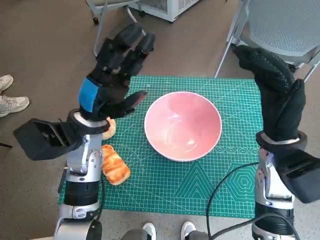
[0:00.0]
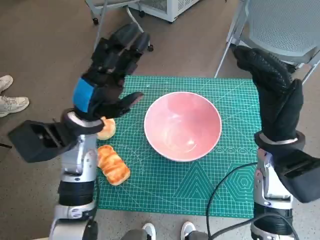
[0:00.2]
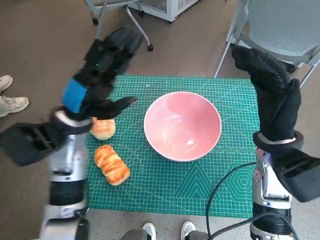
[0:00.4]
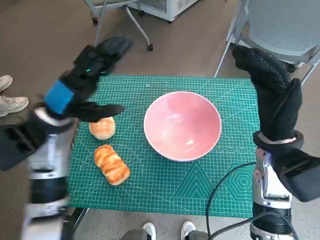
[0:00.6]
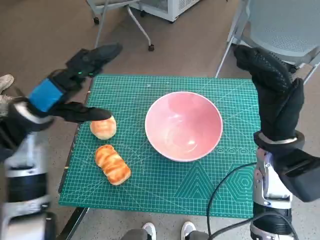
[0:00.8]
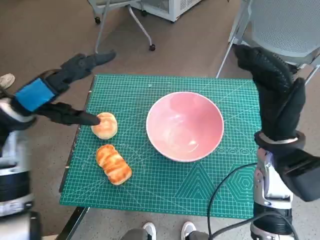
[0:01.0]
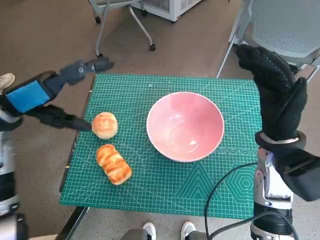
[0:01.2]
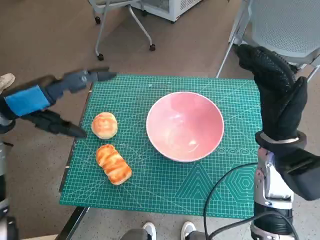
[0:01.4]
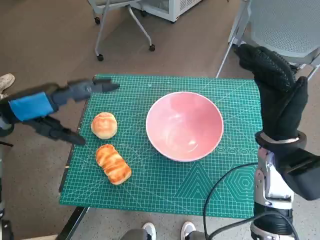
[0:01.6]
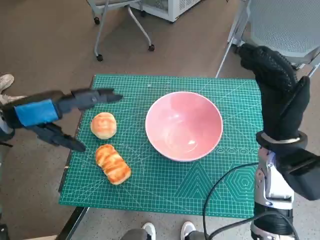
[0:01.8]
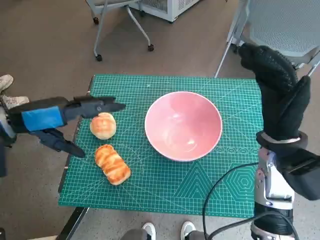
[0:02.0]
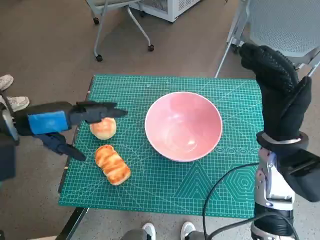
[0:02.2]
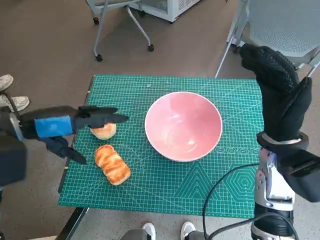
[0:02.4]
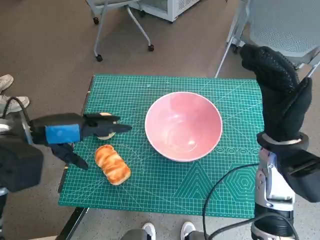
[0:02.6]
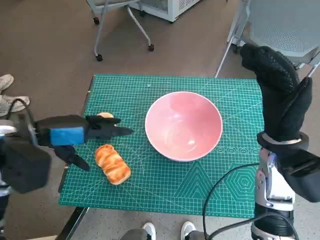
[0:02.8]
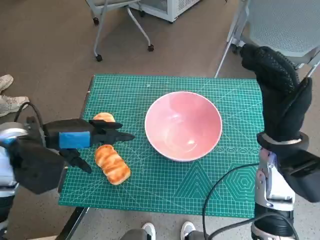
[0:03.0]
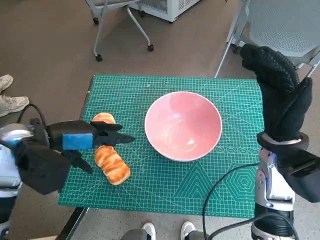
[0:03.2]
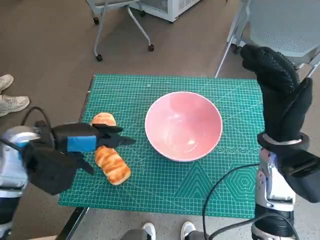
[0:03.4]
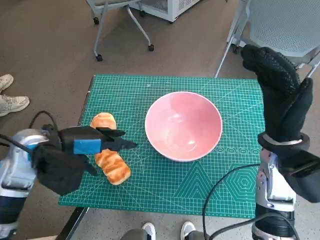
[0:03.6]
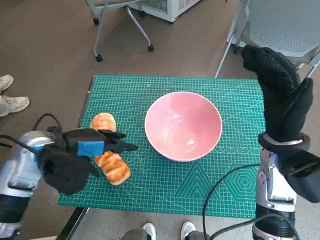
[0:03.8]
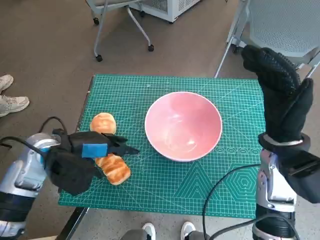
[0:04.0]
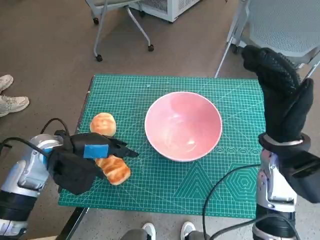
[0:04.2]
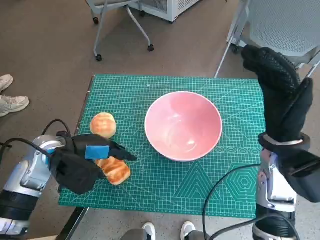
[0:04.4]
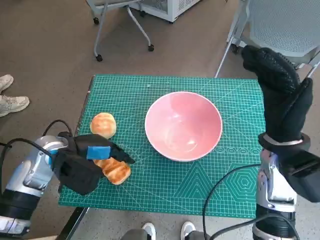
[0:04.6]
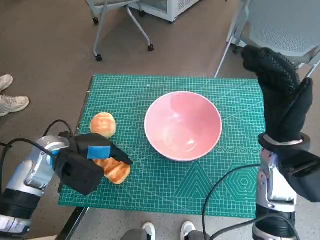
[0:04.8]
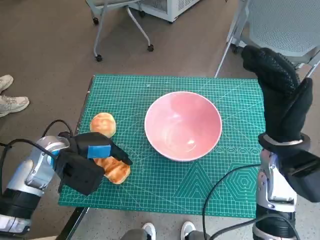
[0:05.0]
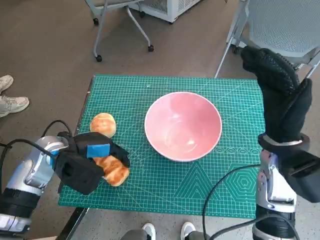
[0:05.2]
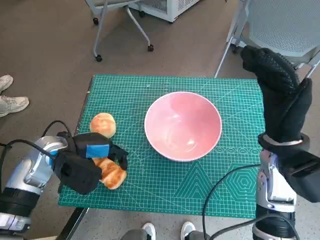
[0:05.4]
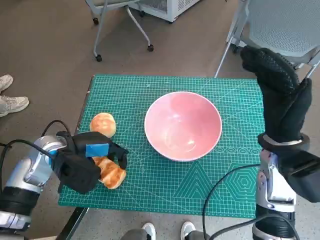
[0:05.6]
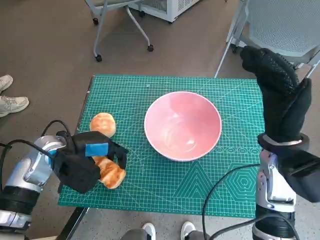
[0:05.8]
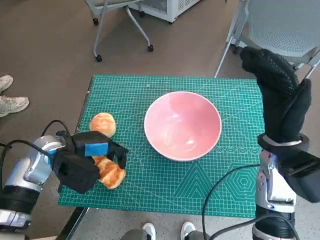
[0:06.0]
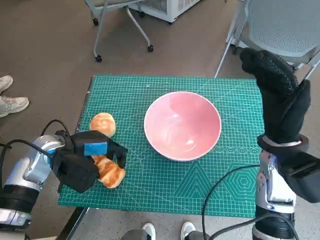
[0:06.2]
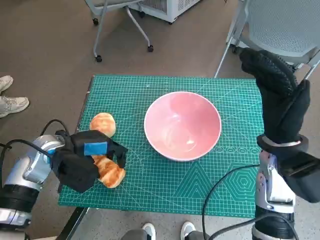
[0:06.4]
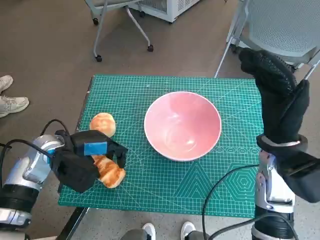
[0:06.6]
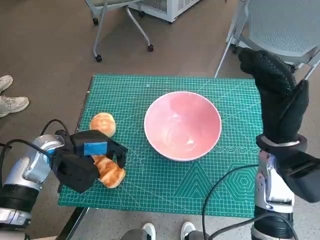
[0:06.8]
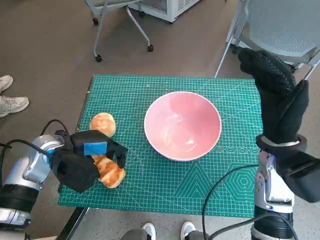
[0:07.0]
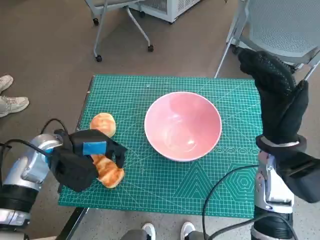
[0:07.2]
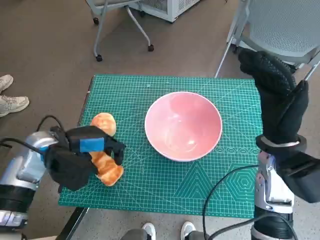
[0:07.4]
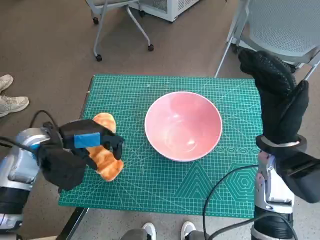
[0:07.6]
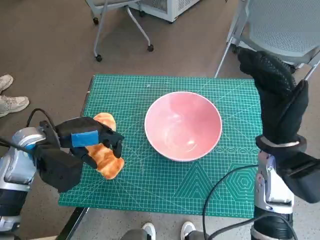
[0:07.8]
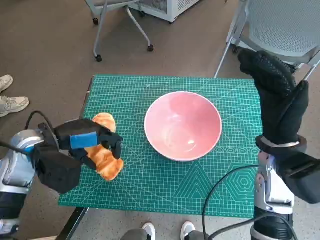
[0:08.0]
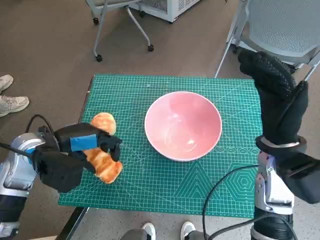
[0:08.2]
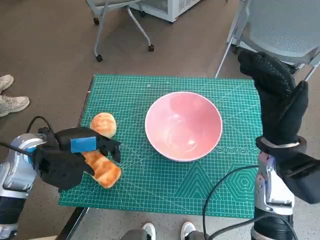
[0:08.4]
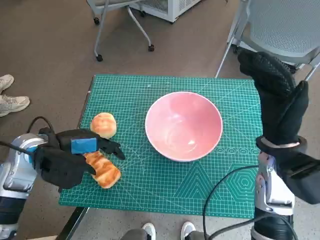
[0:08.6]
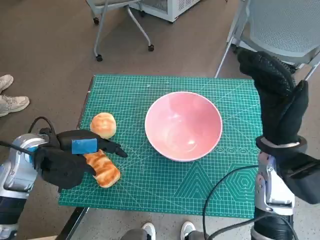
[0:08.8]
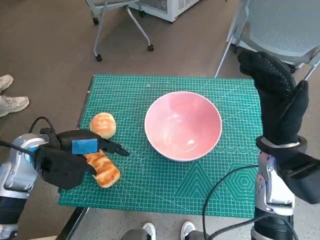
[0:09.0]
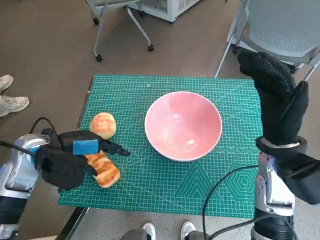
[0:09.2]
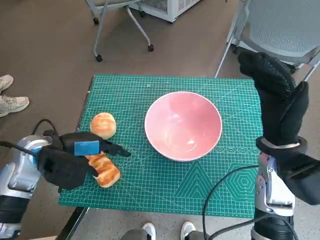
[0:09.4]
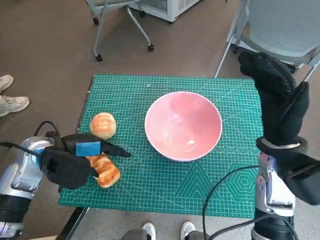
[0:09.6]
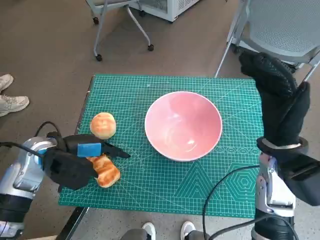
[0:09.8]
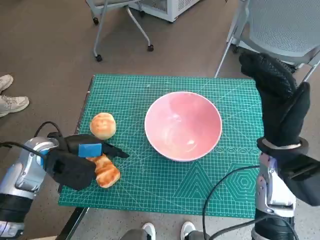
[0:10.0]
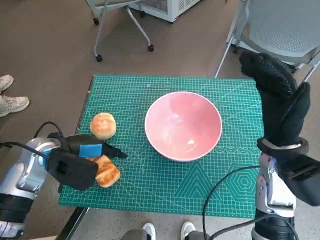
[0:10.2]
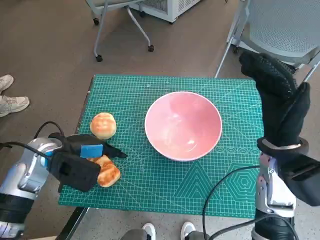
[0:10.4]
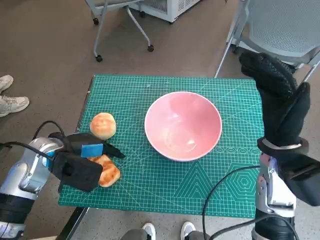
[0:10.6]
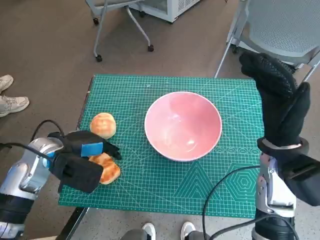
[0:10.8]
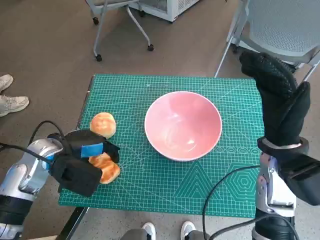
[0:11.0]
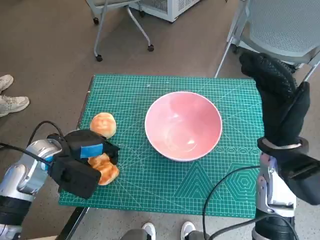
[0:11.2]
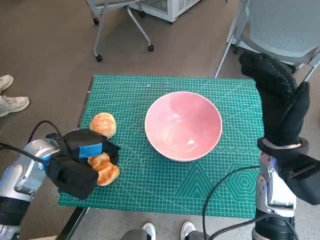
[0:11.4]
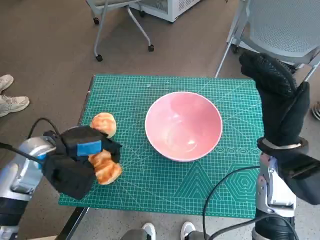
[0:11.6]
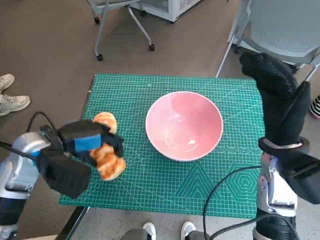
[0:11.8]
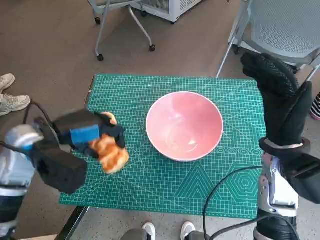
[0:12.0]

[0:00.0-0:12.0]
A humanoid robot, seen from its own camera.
Task of the whole recording: Push the bowl into the center of the table and put the bread into the bowl.
Step, 0:00.0 to 0:06.6: Grasp the long bread with left hand.
Step, 0:06.8 to 0:11.4: Grasp the long bread with left hand.
0:00.0 to 0:01.6: The left hand is displaced to the left and upward by approximately 15 cm.
0:01.6 to 0:03.0: The left hand ends up roughly 5 cm from where it was.
0:03.0 to 0:04.4: The left hand travels downward by roughly 5 cm.
0:04.4 to 0:10.4: The hands stay close to where they were, moving slightly.
0:10.4 to 0:12.0: The left hand travels upward by some 5 cm.

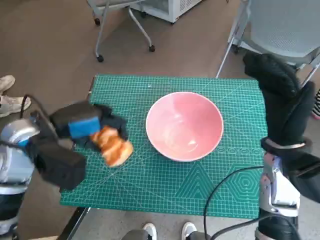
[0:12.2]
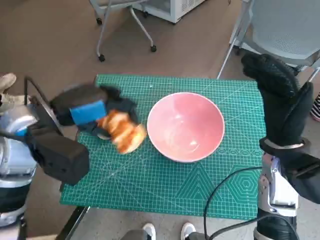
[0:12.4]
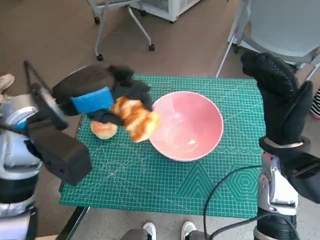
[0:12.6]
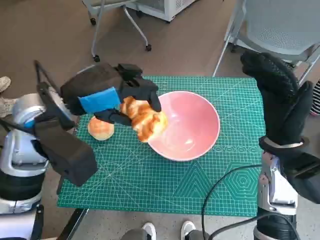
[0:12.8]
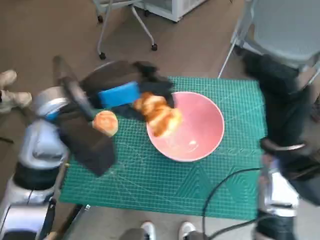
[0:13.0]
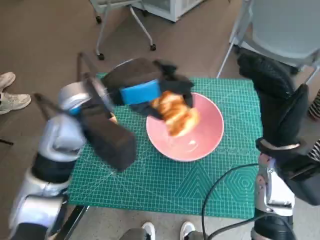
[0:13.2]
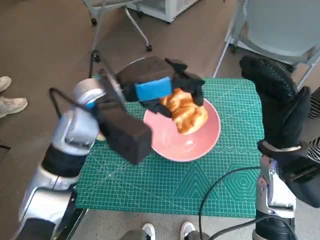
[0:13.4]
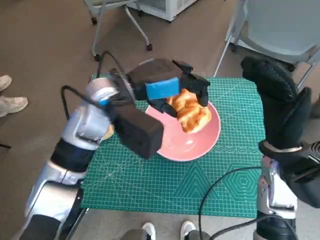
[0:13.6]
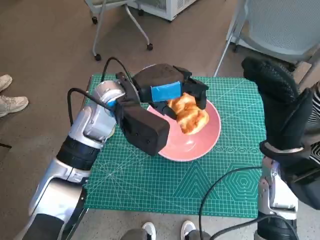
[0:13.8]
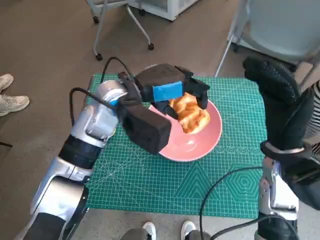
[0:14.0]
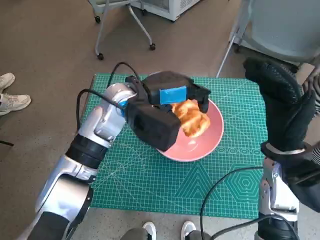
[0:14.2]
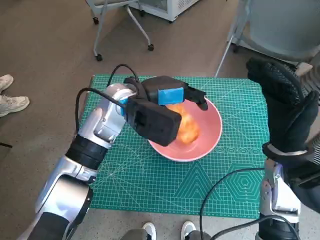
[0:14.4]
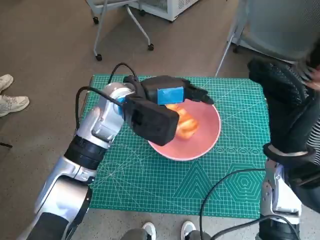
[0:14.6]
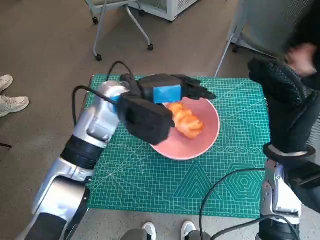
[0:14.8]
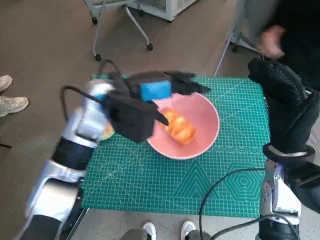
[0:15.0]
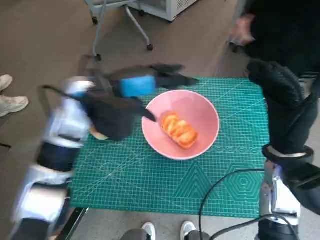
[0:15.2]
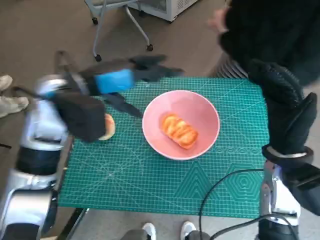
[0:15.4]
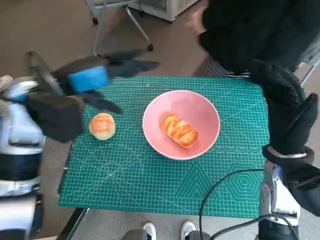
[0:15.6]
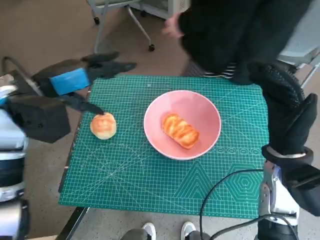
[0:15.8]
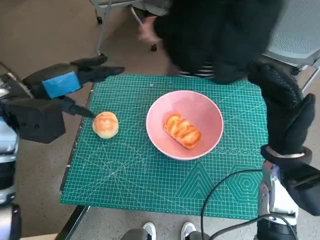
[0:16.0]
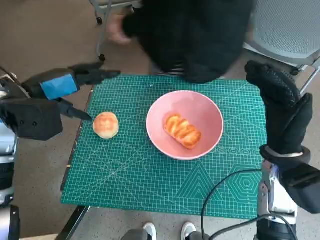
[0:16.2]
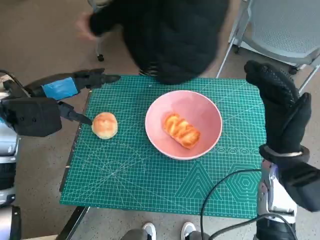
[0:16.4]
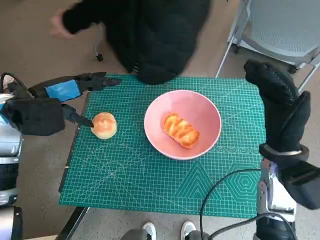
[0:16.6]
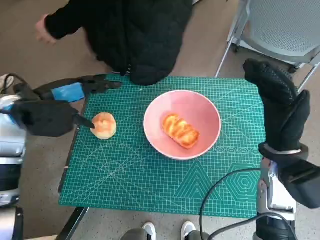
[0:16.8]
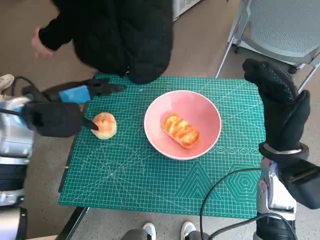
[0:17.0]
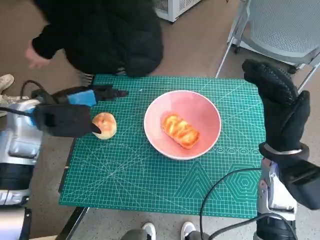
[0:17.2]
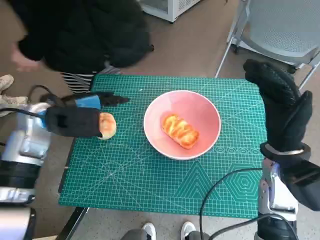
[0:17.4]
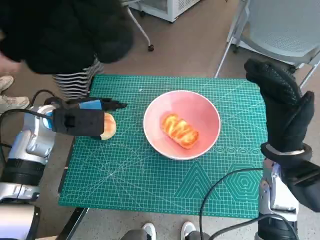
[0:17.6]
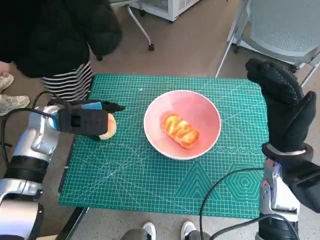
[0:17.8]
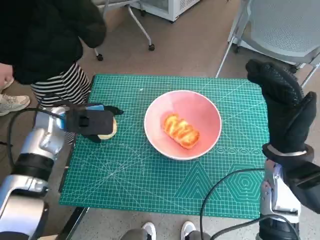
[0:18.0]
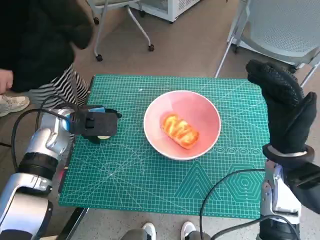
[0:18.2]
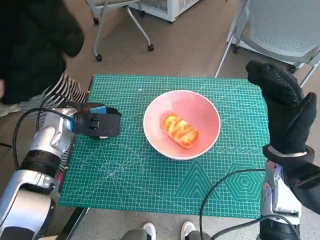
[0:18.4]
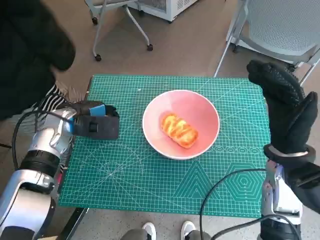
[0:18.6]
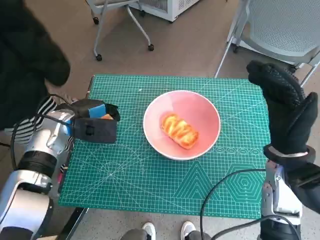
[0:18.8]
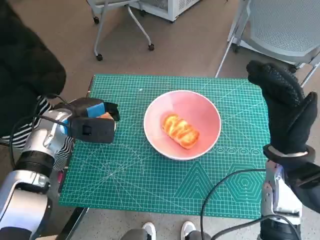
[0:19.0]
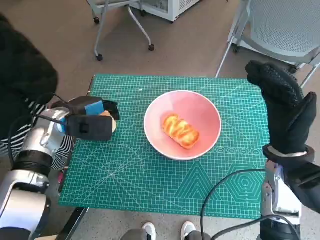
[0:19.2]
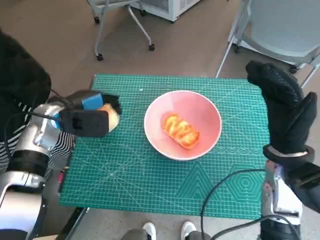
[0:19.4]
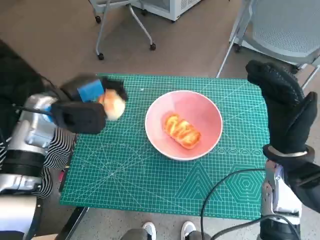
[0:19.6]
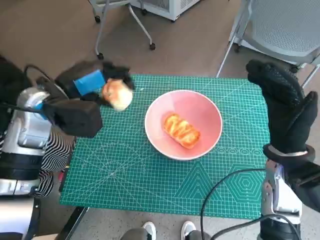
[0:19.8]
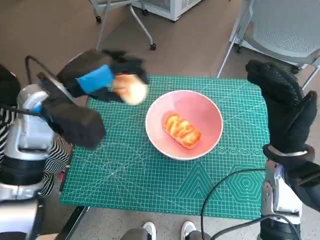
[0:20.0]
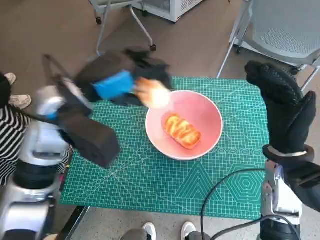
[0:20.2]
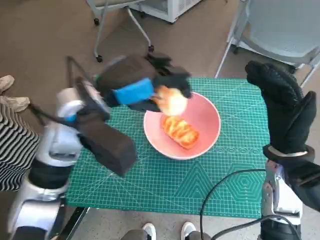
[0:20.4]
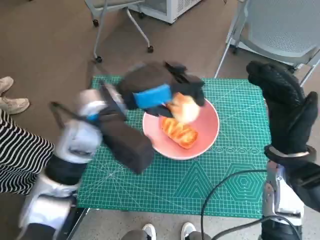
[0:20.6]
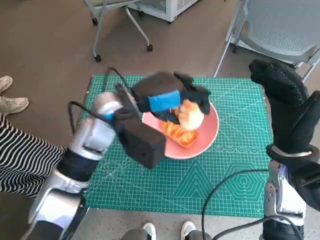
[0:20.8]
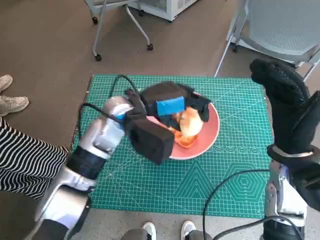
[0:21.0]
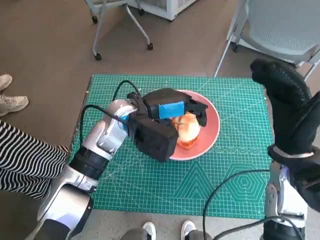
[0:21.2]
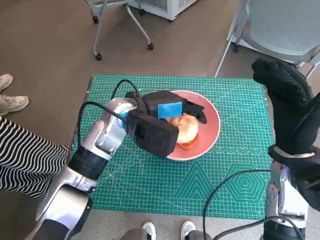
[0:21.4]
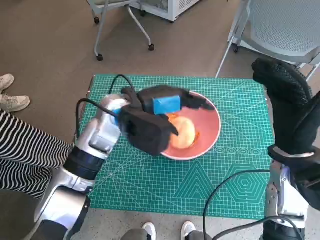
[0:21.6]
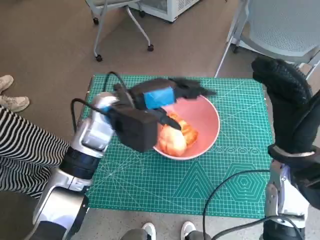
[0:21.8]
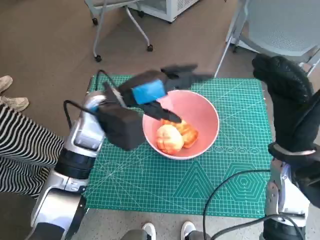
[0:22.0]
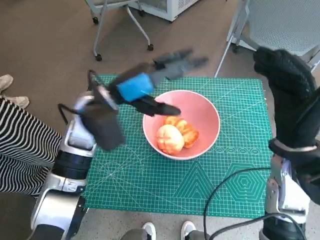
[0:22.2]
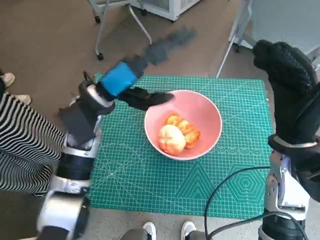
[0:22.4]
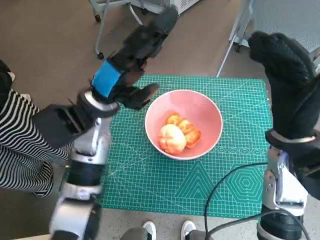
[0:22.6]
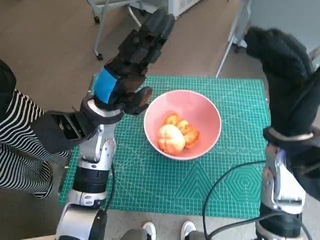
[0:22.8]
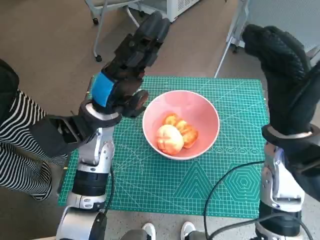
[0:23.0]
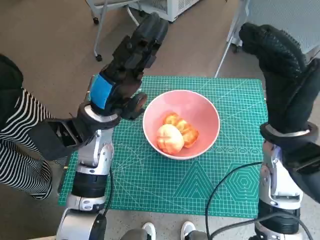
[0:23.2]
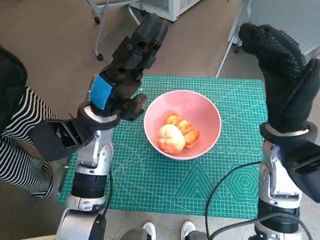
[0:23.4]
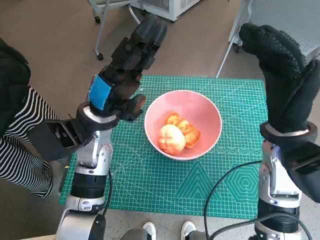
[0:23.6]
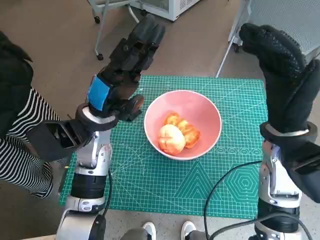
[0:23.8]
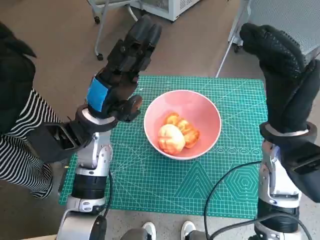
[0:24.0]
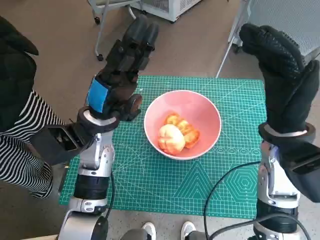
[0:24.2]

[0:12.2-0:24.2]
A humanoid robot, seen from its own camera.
Task of the whole recording: Push the bowl into the center of the table and put the bread into the bowl.
Step, 0:12.2 to 0:14.8: Place the long bread in pink bowl with left hand.
Step, 0:15.0 to 0:18.6: Grasp the round bread with left hand.
Step, 0:19.0 to 0:21.8: Place the round bread in pink bowl with left hand.
0:12.2 to 0:13.8: The left hand travels to the right and forward by approximately 15 cm.
0:15.2 to 0:16.6: The left hand moves to the left, approximately 15 cm.
0:16.6 to 0:18.2: The left hand goes approximately 10 cm downward.
0:18.2 to 0:19.8: The left hand is displaced upward by approximately 10 cm.
0:19.8 to 0:21.2: The left hand goes roughly 15 cm to the right.
0:21.2 to 0:22.6: The left hand goes roughly 5 cm to the left.
